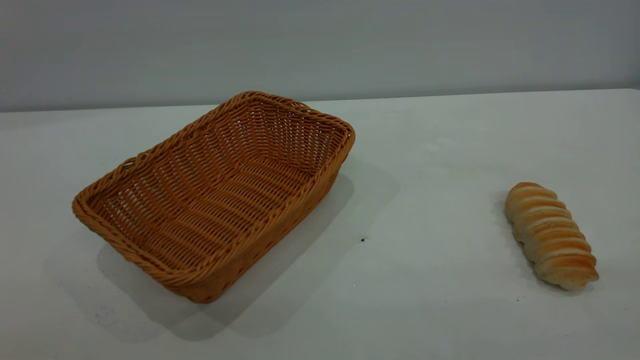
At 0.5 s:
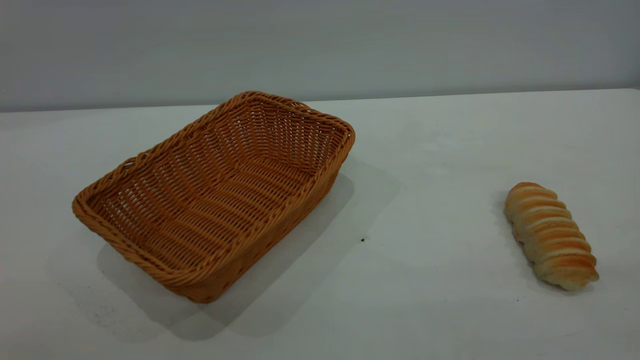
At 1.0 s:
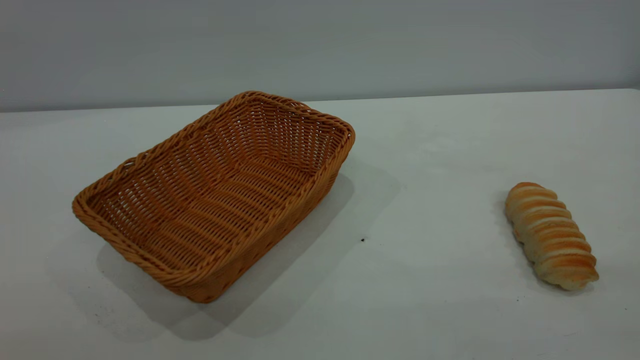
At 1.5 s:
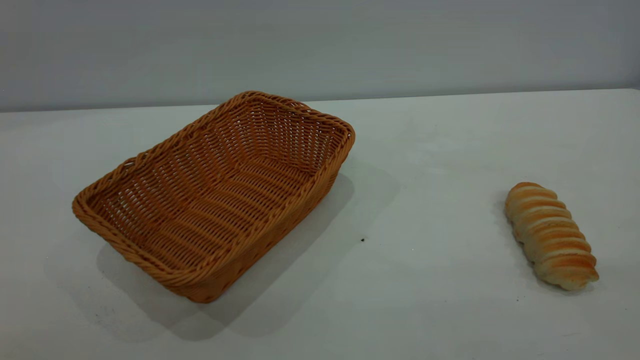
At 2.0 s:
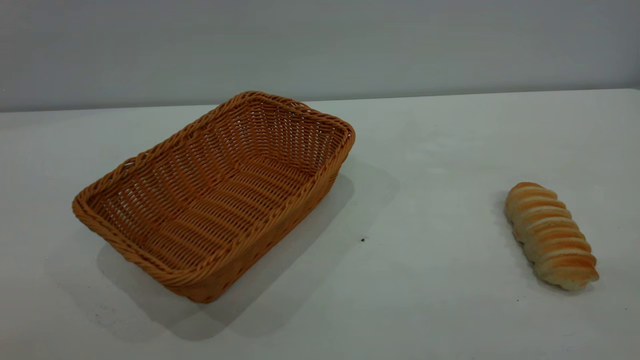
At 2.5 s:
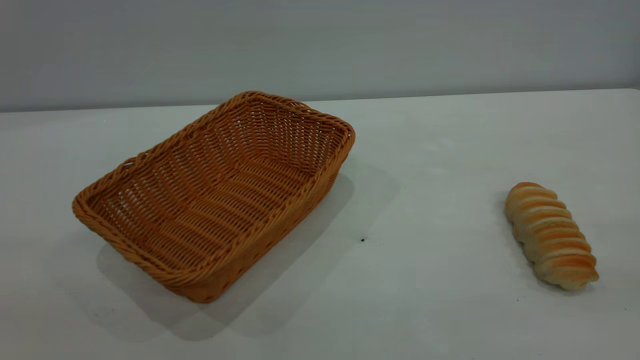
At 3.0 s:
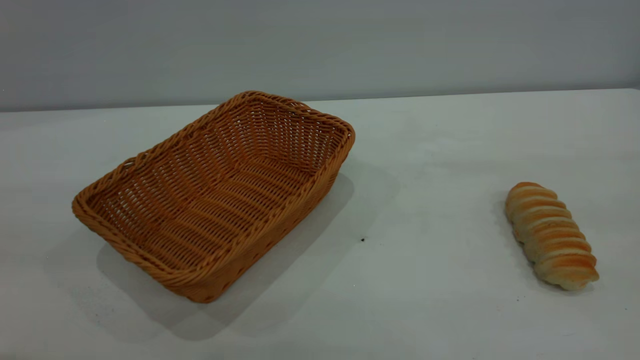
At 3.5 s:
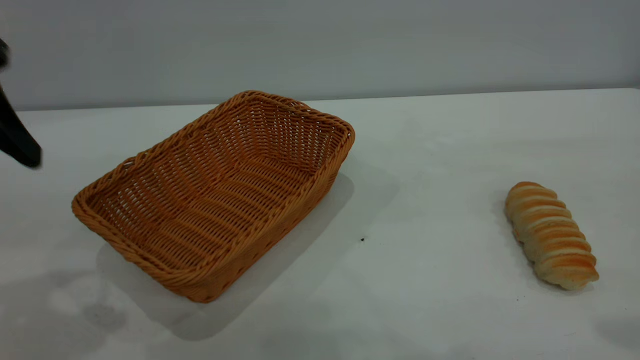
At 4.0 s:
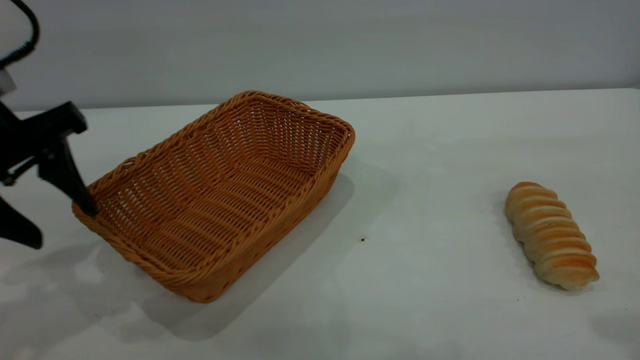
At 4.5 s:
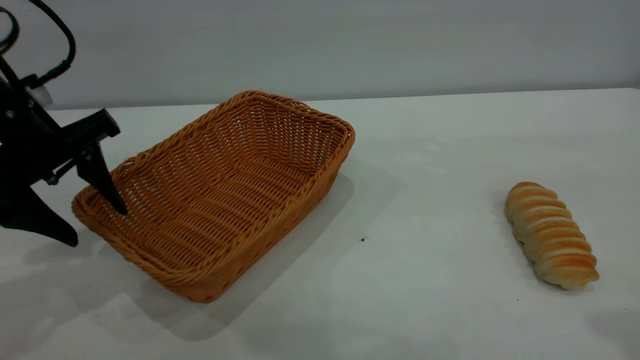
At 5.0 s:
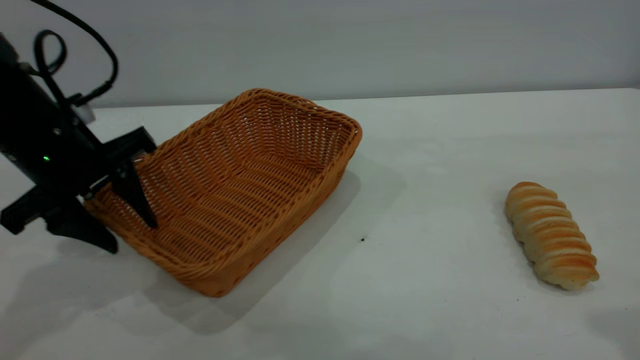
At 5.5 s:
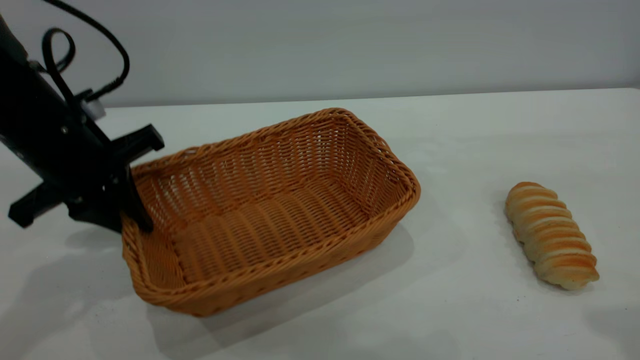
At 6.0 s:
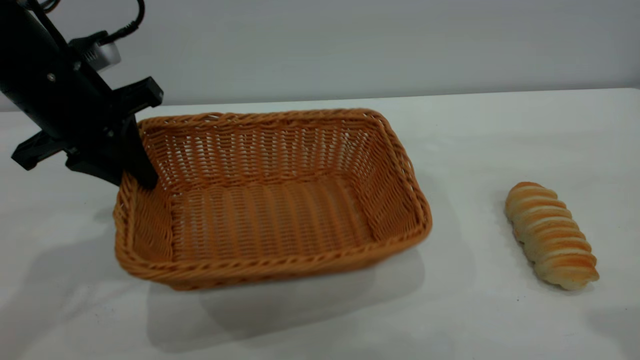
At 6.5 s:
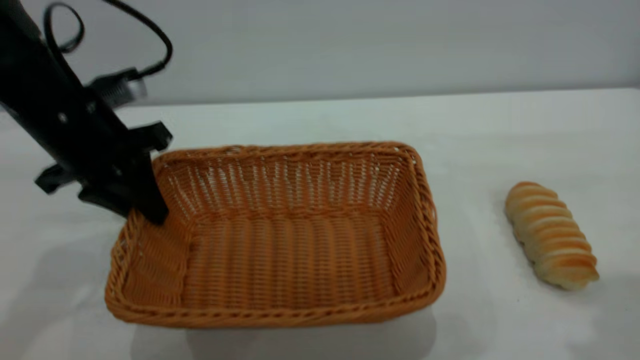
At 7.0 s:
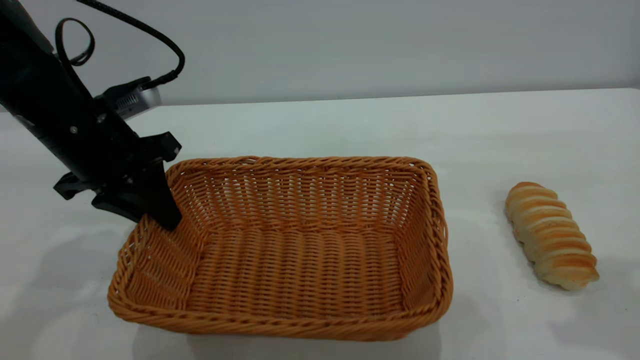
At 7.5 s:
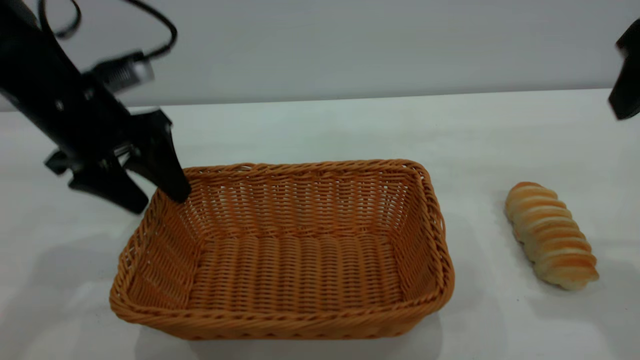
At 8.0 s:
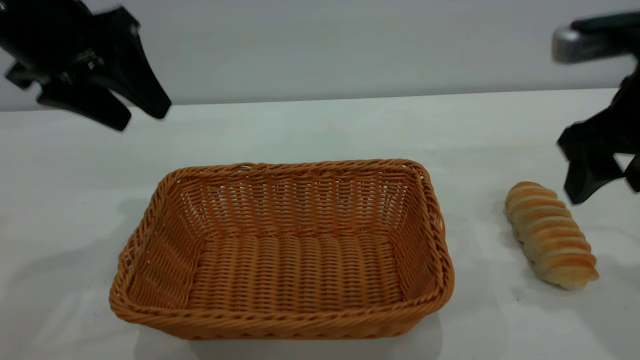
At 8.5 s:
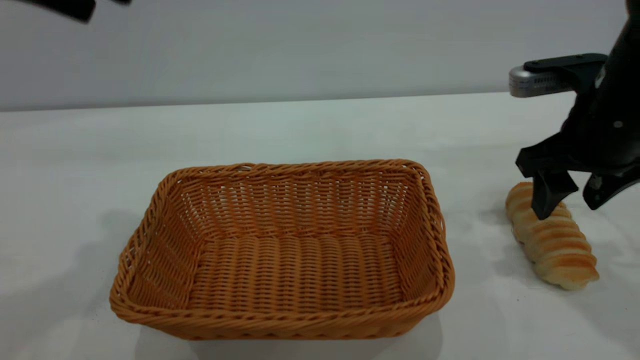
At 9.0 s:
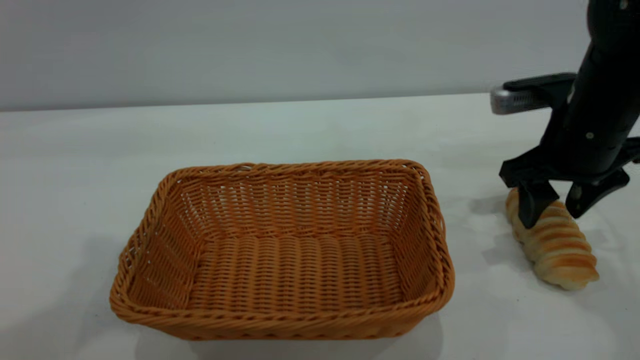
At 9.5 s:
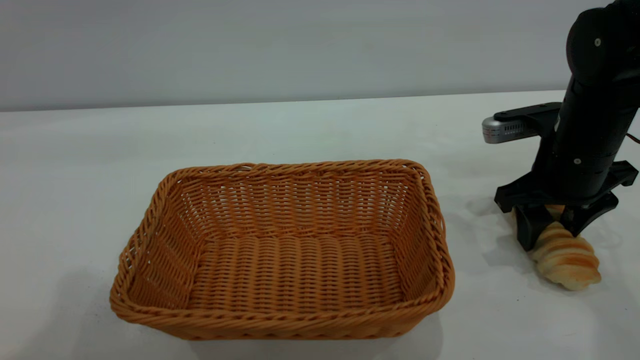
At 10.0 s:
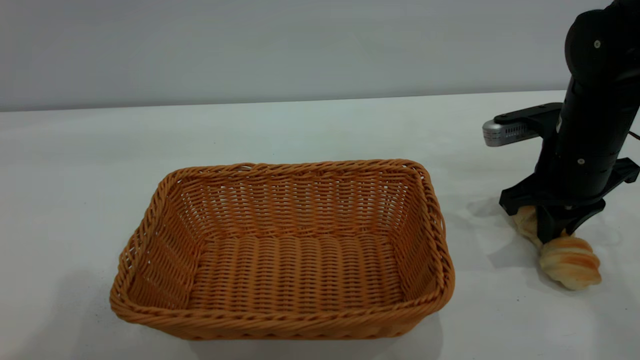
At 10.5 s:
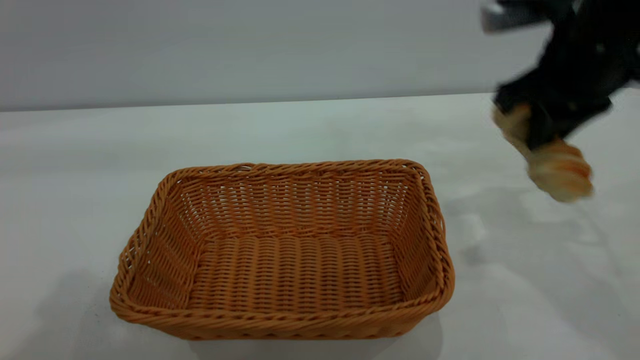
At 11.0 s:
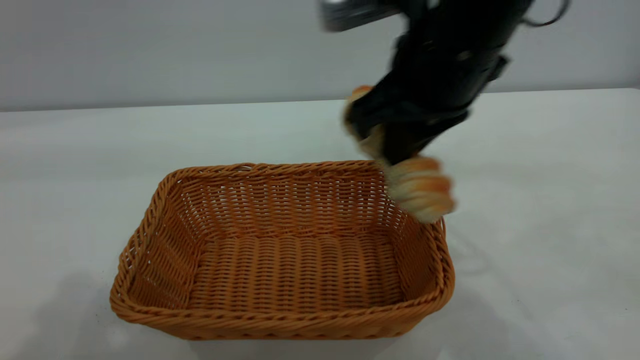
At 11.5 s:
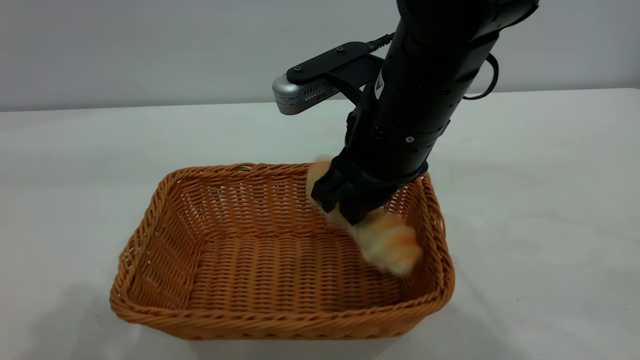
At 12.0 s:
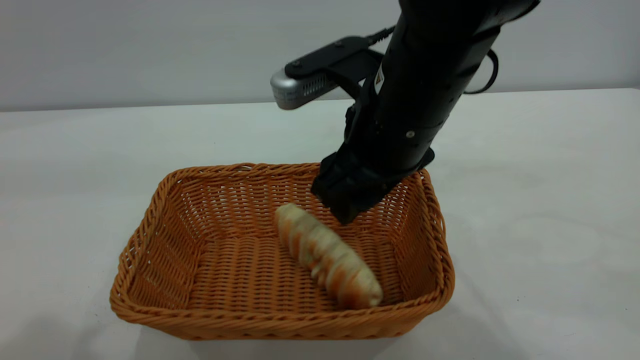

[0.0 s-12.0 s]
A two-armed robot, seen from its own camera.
Task of the whole recording: One hand grasps the yellow basket and places it in the middle of the table, while the other hand picks up the long bread and puts it into the yellow basket.
Step, 0.0 to 7.5 s: Move the basket to the center of view.
2.0 to 4.0 s: The left gripper heads forward and downward, covering roughly 35 cm.
4.0 to 6.0 s: The left gripper moves forward, approximately 5 cm, and closes up.
6.0 to 8.0 s: The left gripper moves upward, about 5 cm, and opens its fingers. Meanwhile the right gripper travels downward and forward by some 20 cm, and opens up.
8.0 to 10.0 s: The right gripper moves downward and forward, some 10 cm, and closes. The left gripper moves upward and backward, about 20 cm.
10.0 to 12.0 s: The right gripper moves to the left and upward, roughly 20 cm, and opens. Meanwhile the left gripper is displaced backward by roughly 5 cm.

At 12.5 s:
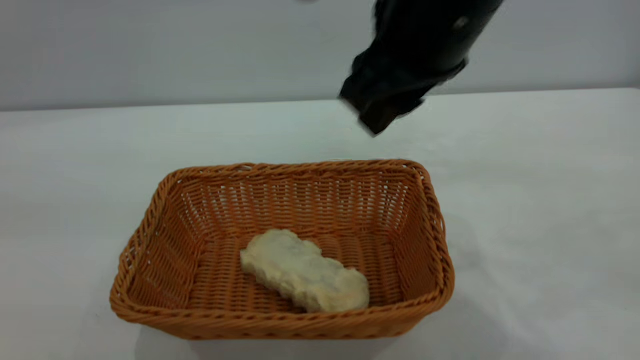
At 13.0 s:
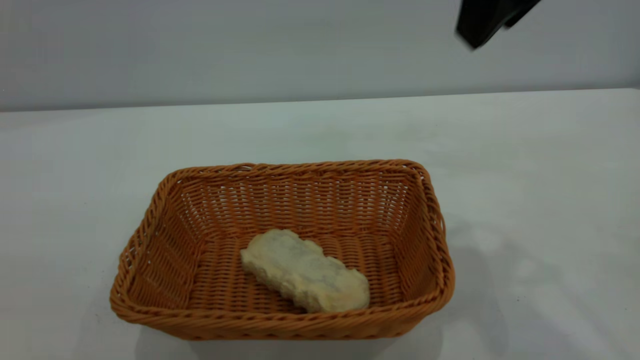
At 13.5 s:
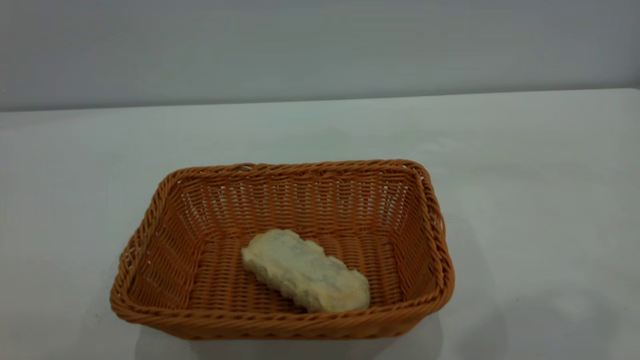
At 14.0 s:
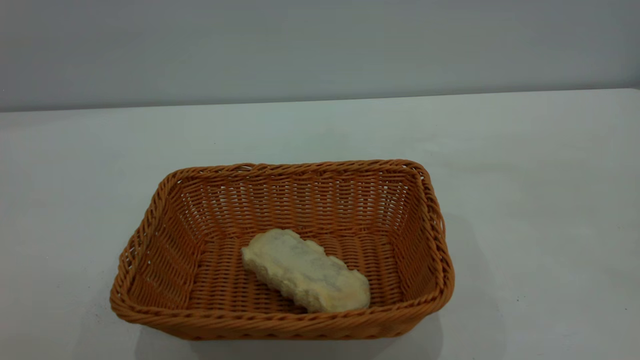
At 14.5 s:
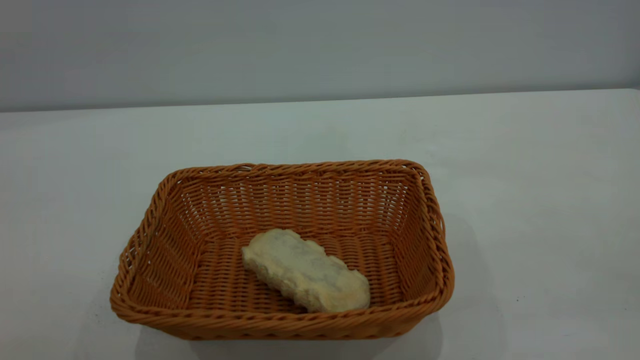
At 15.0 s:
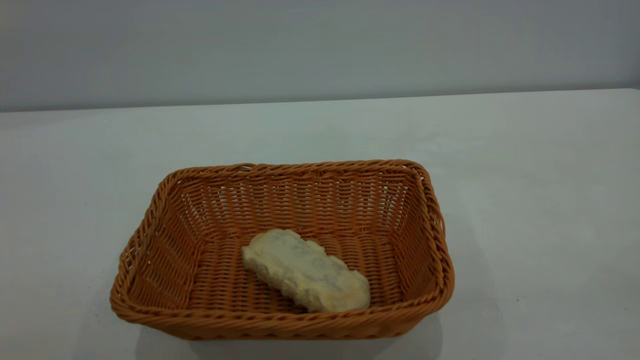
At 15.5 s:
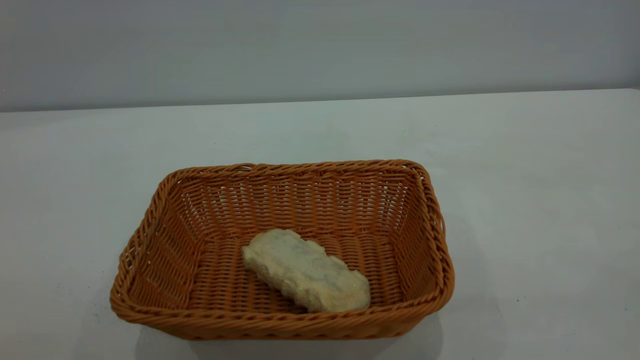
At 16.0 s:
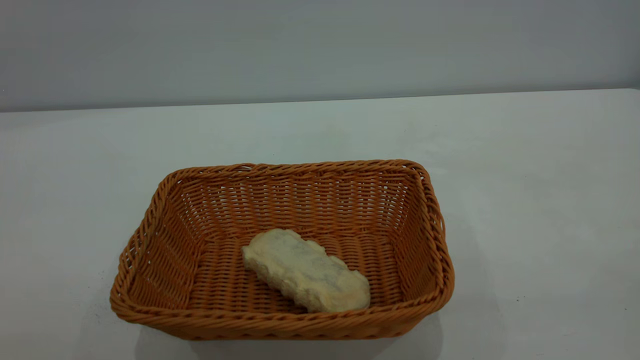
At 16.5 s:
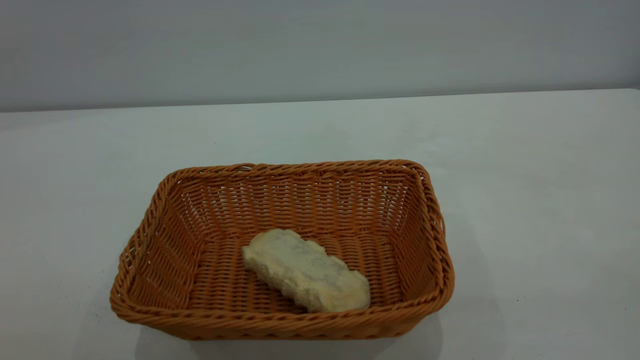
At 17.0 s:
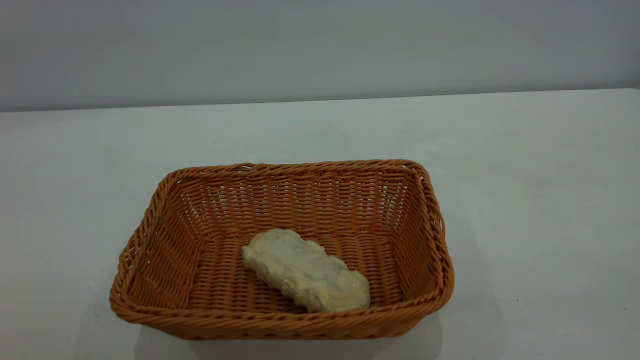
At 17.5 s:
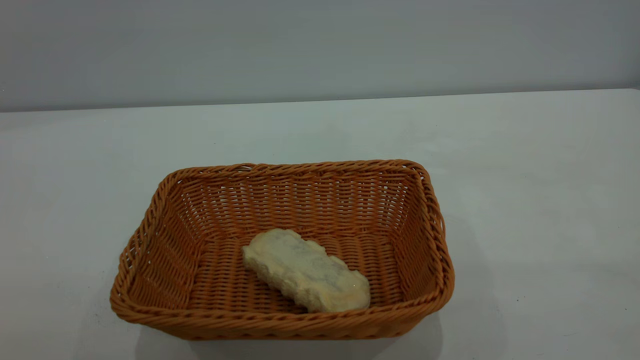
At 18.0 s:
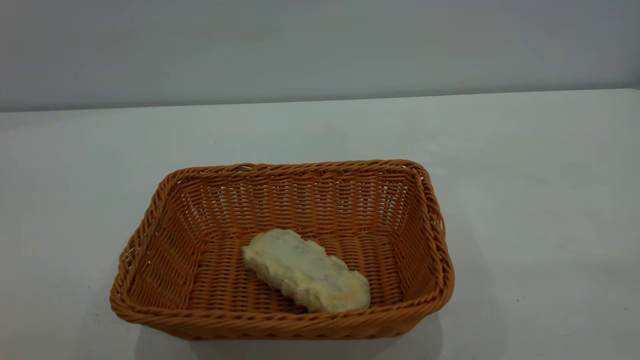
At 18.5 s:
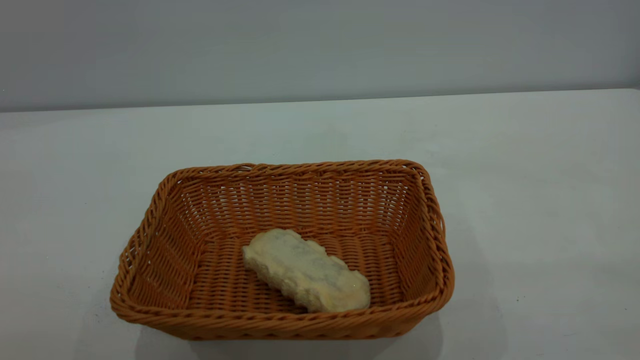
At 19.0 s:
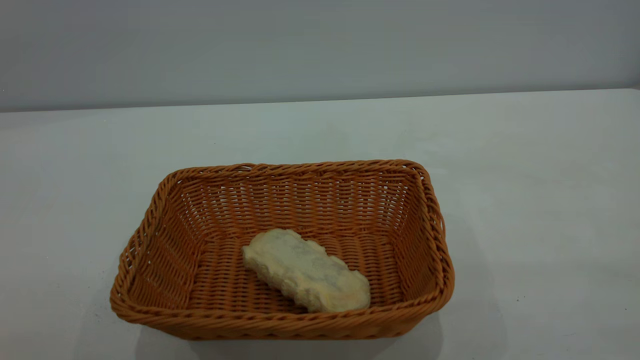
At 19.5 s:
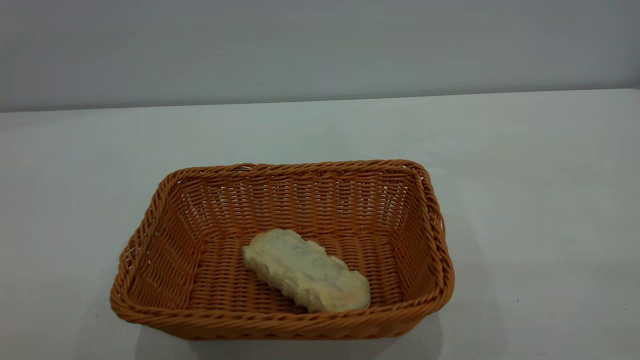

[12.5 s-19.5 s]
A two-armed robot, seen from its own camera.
Task of the whole recording: One hand grasps the yellow basket and places it in the middle of the table, while the other hand picks up the long bread and puts it into the yellow basket.
12.5 to 14.5 s: The left gripper shifts roughly 15 cm backward and downward. Meanwhile the right gripper heads backward, to the right and upward, covering approximately 40 cm.
17.5 to 19.5 s: Both grippers stay put.
